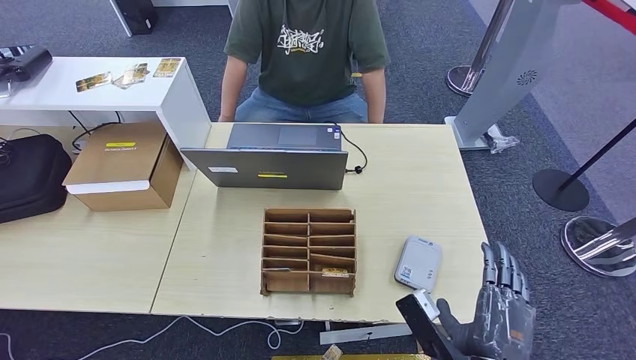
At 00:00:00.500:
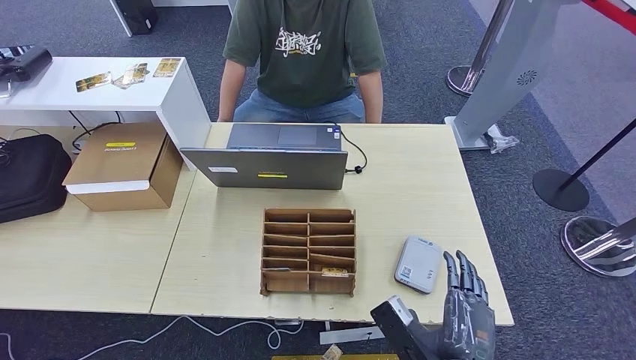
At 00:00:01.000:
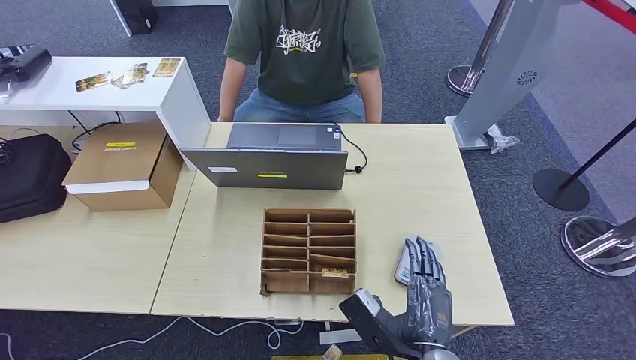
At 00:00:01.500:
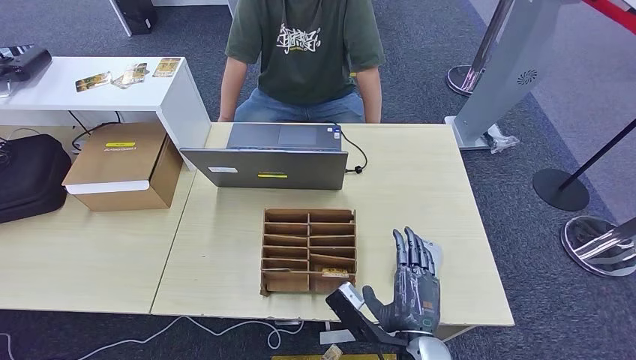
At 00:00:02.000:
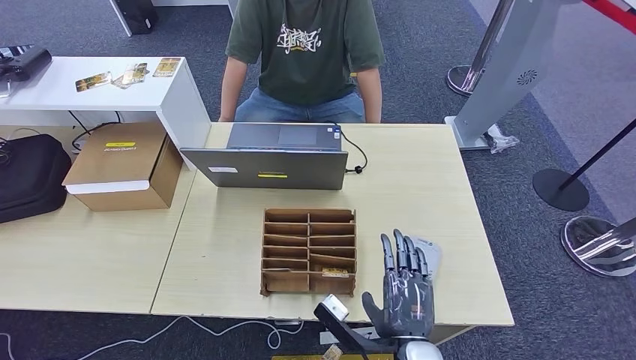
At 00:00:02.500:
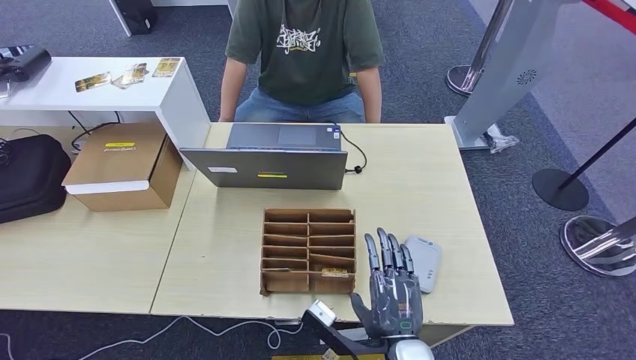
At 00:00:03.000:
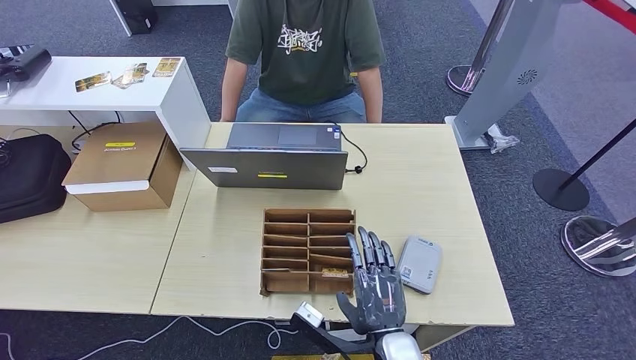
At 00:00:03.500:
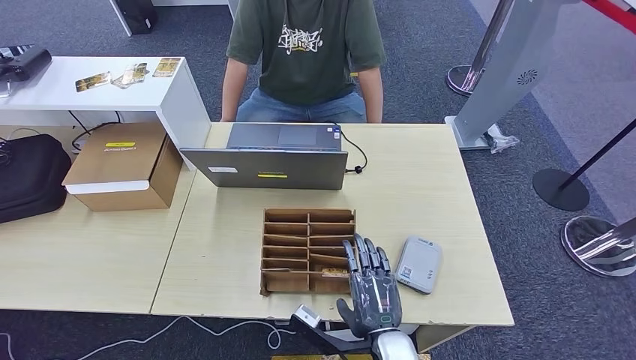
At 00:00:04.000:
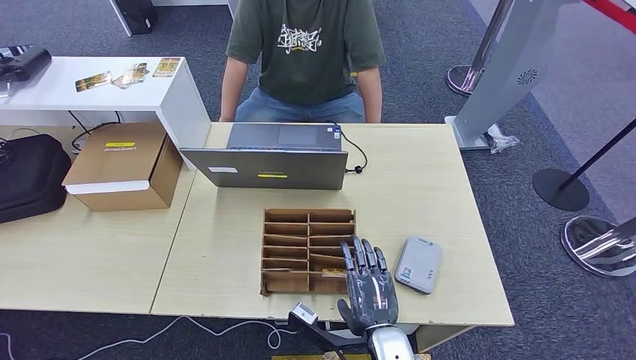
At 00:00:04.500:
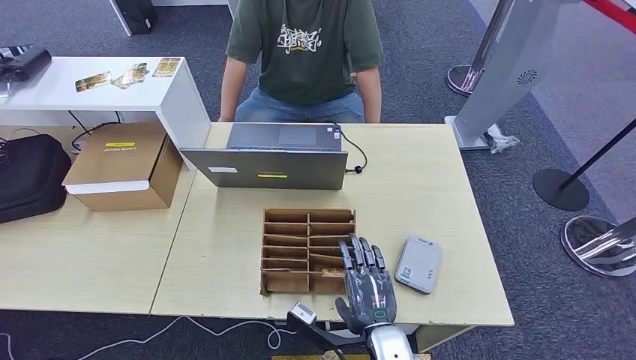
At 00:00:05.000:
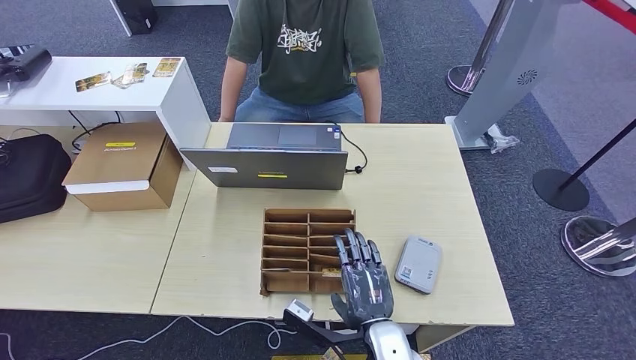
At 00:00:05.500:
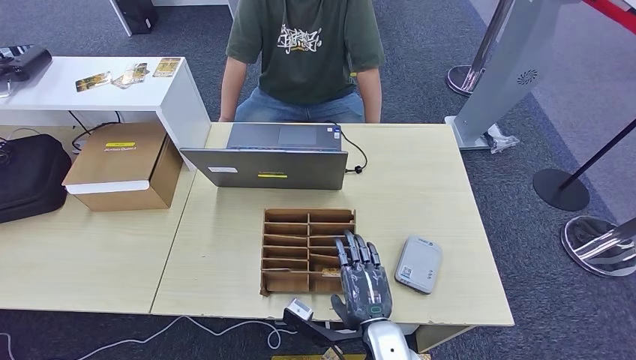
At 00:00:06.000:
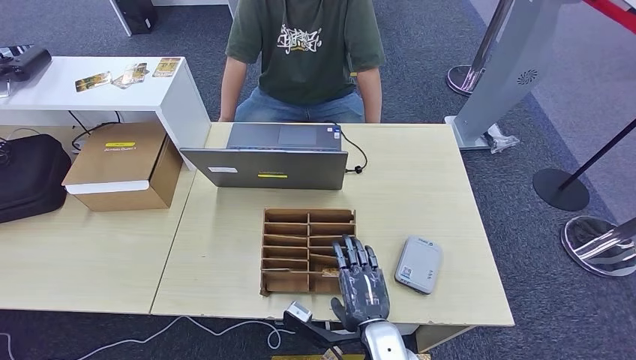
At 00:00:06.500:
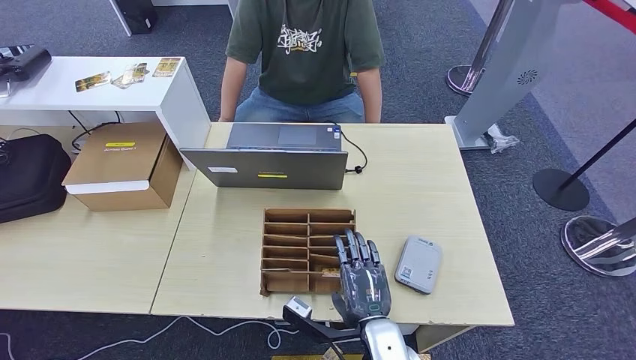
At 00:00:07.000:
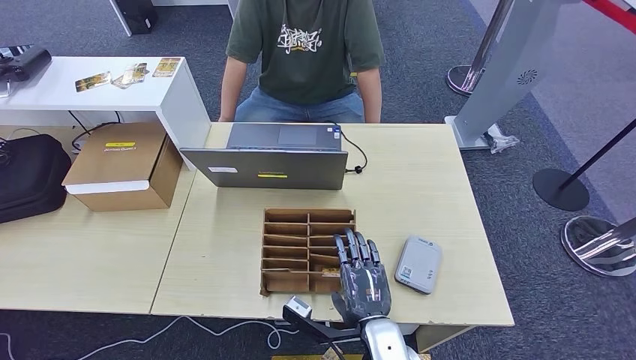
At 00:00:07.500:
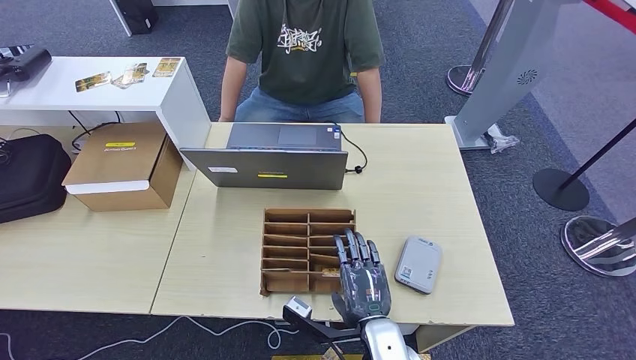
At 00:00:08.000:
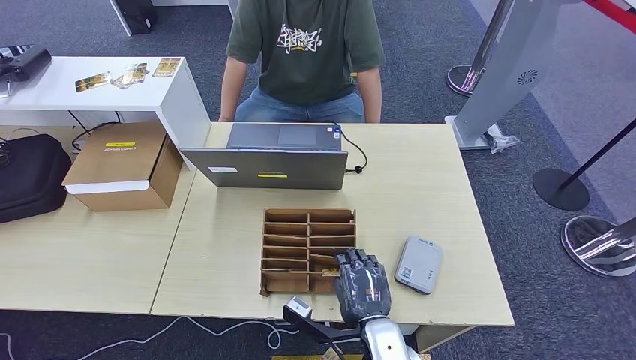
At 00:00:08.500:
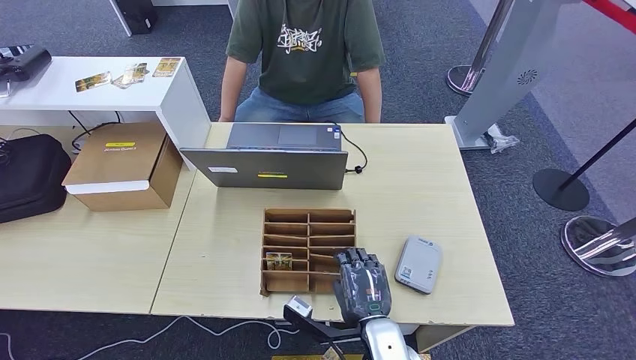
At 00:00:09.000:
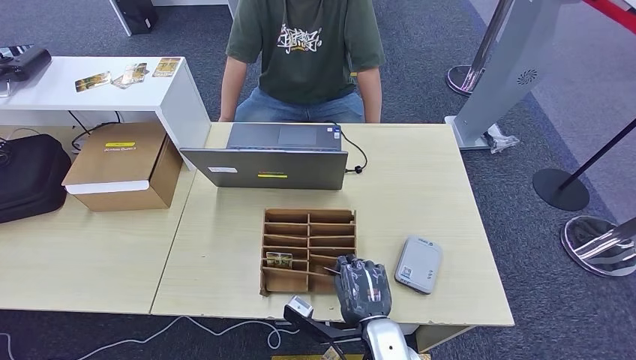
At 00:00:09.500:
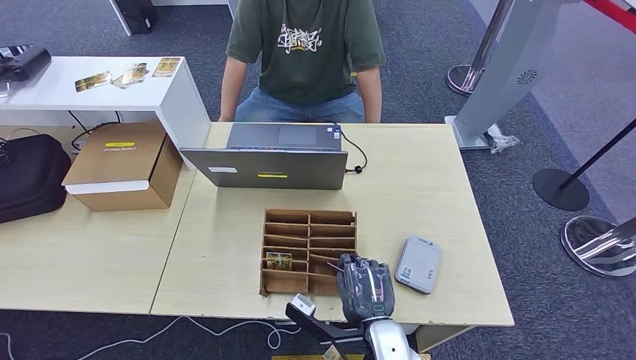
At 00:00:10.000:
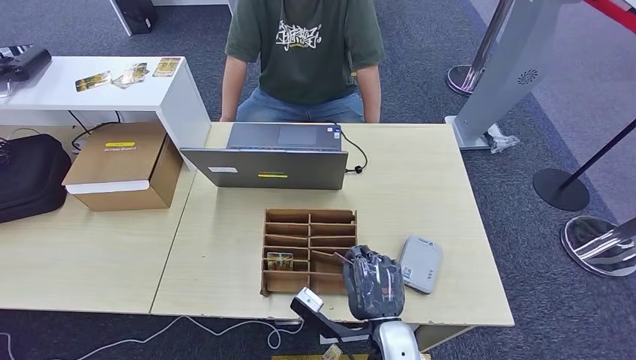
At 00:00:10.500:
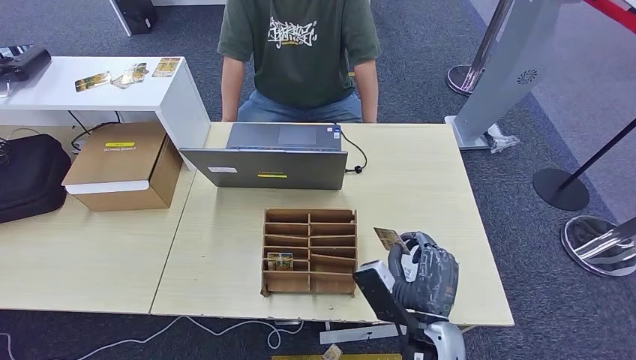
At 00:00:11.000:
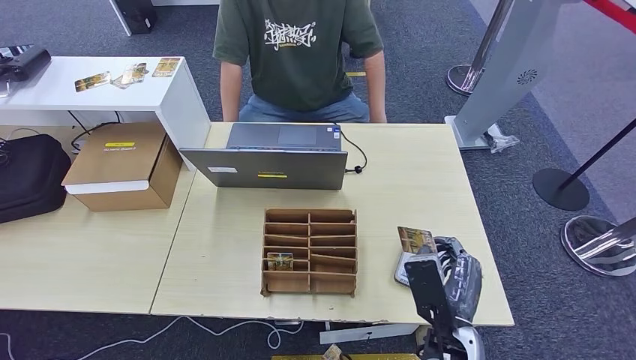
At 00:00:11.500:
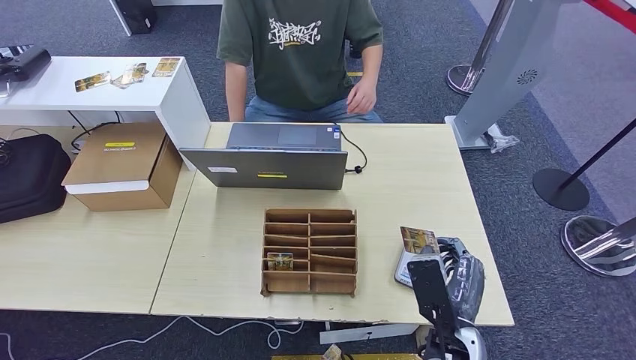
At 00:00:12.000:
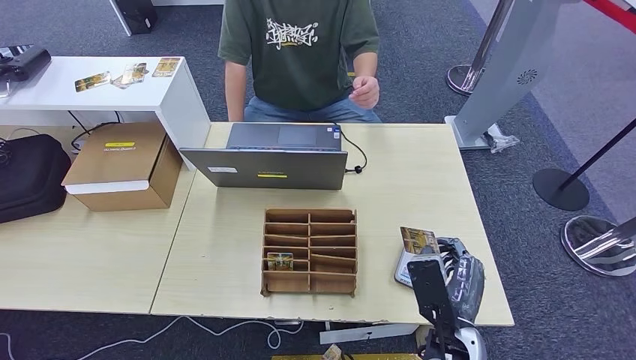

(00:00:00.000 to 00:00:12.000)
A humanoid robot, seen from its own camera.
Step, 00:00:00.500 - 00:00:10.500: Pick up the room key from the key card box.
00:00:00.000 - 00:00:02.000: The right hand heads to the left, covering roughly 10 cm.
00:00:02.000 - 00:00:06.000: The hands make only small movements.
00:00:06.000 - 00:00:08.000: Neither hand changes place.
00:00:08.000 - 00:00:10.000: There are only small adjustments of the hands.
00:00:10.000 - 00:00:12.000: The right hand shifts some 10 cm to the right.

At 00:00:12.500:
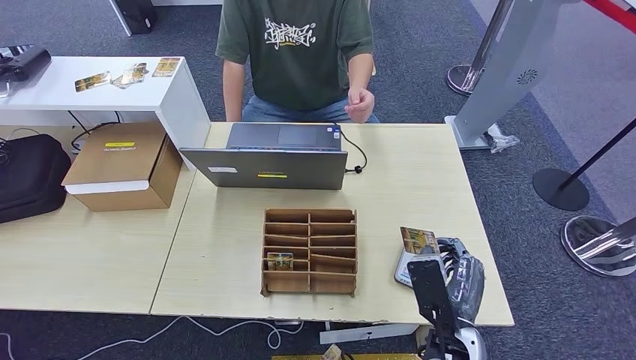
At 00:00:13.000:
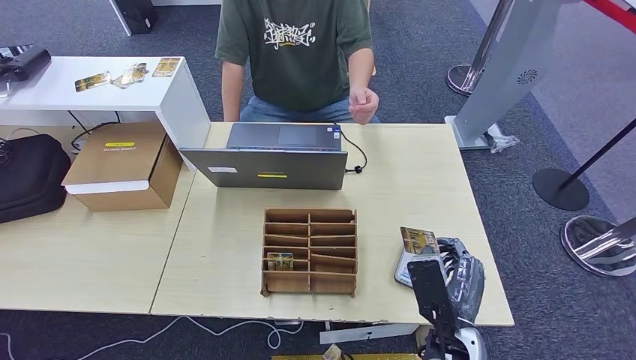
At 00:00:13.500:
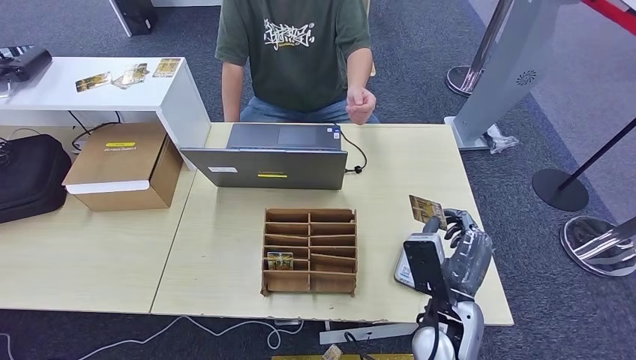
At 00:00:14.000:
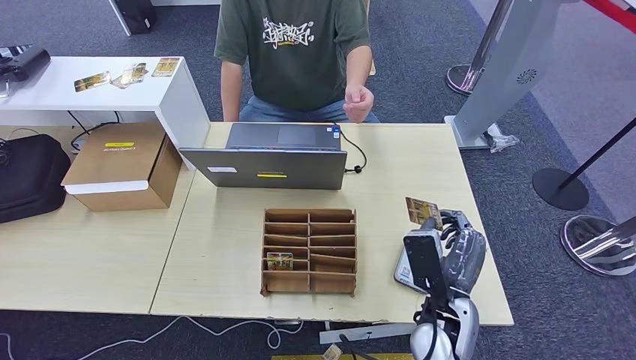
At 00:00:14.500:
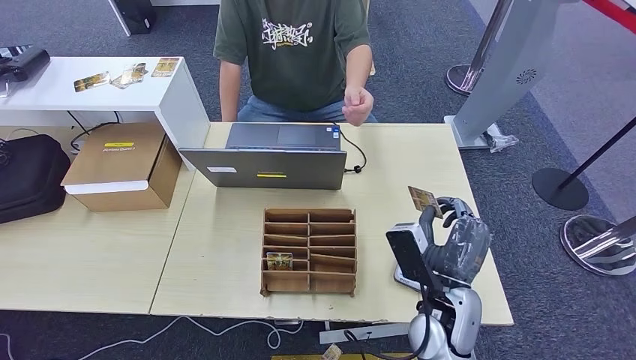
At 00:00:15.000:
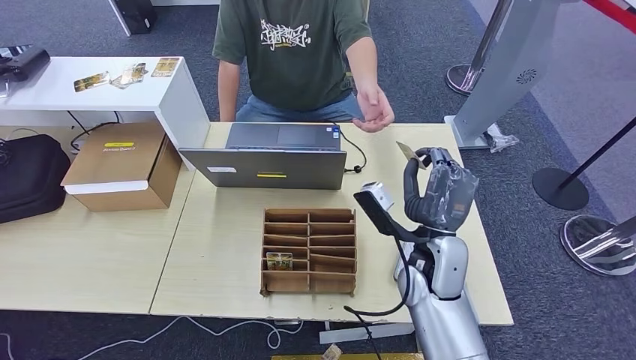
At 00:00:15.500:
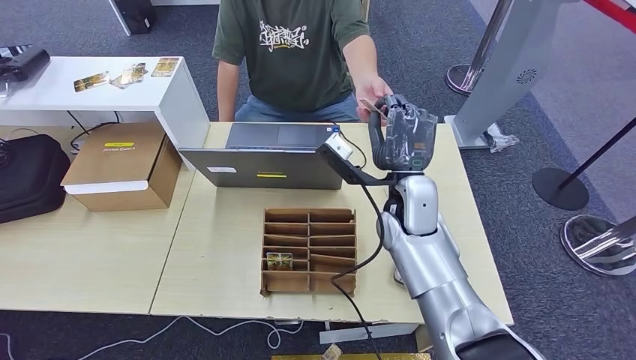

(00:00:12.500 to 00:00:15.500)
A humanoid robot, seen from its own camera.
Step, 00:00:12.500 - 00:00:15.500: Hand the room key to the person.
00:00:12.500 - 00:00:14.000: The hands make only small movements.
00:00:14.000 - 00:00:15.500: The right hand travels forward and upward by approximately 20 cm.
